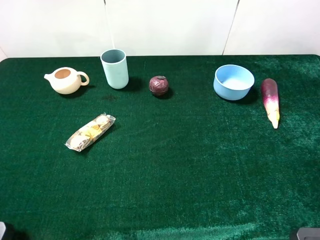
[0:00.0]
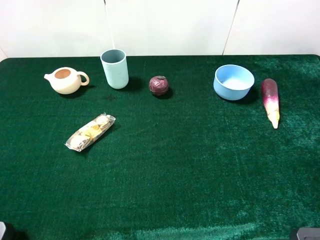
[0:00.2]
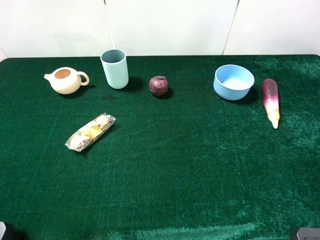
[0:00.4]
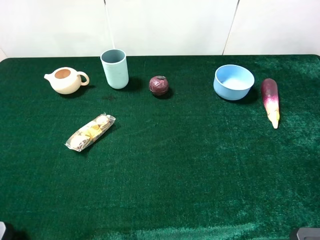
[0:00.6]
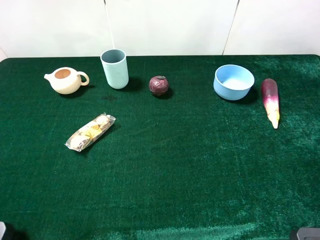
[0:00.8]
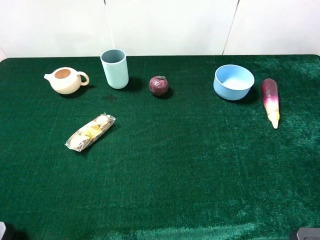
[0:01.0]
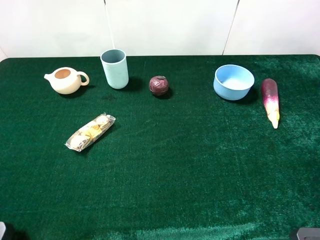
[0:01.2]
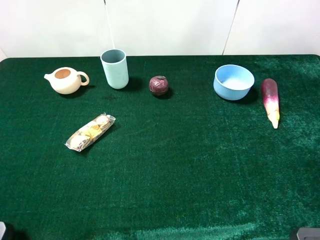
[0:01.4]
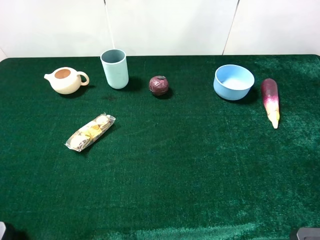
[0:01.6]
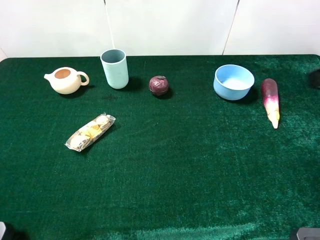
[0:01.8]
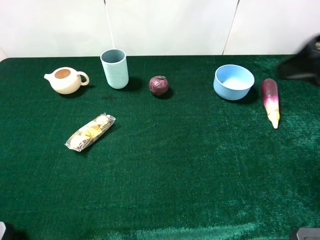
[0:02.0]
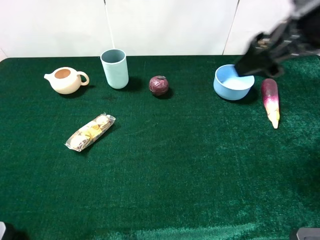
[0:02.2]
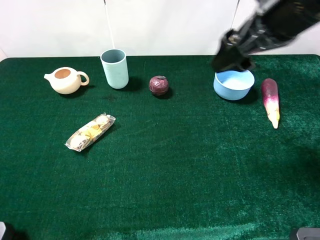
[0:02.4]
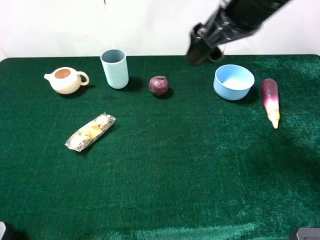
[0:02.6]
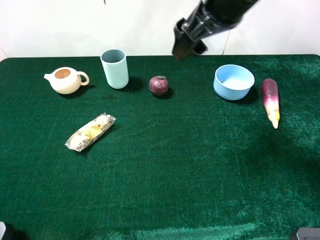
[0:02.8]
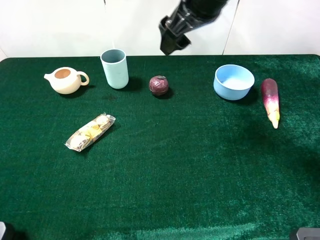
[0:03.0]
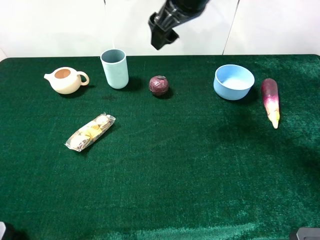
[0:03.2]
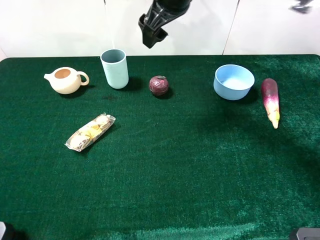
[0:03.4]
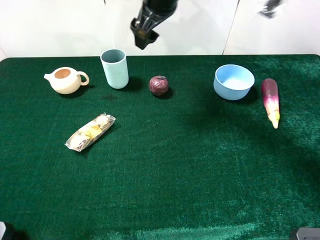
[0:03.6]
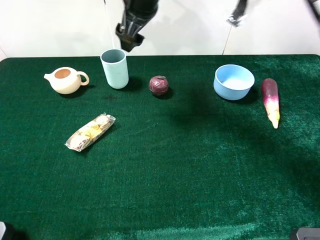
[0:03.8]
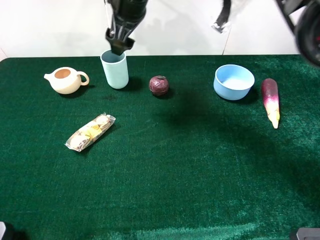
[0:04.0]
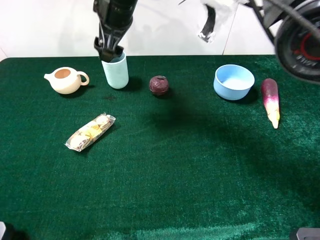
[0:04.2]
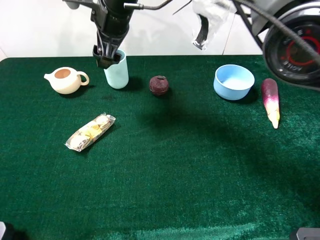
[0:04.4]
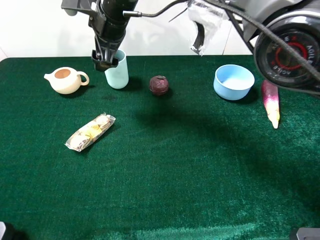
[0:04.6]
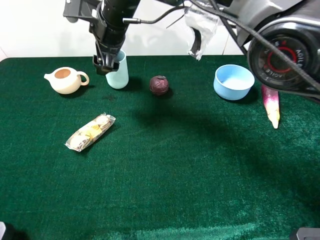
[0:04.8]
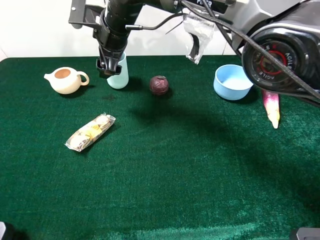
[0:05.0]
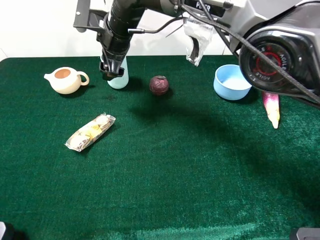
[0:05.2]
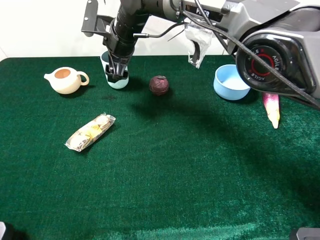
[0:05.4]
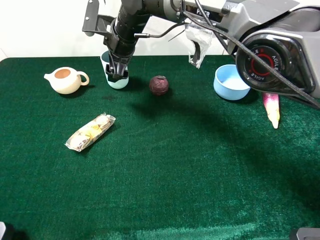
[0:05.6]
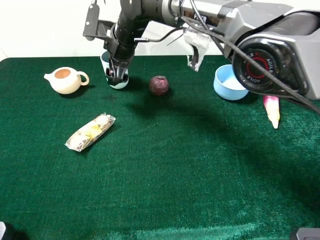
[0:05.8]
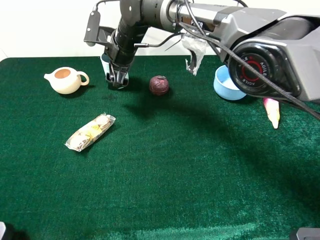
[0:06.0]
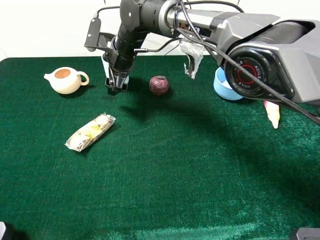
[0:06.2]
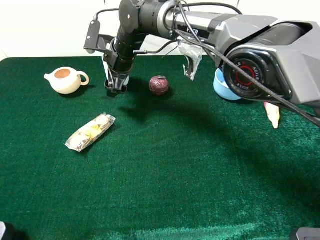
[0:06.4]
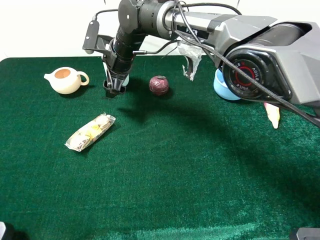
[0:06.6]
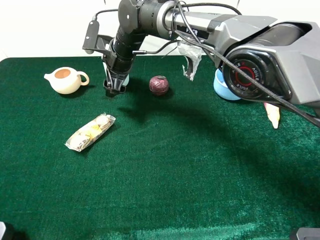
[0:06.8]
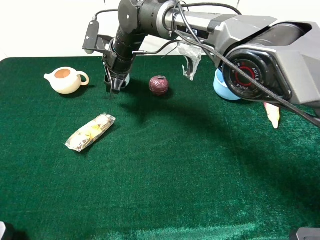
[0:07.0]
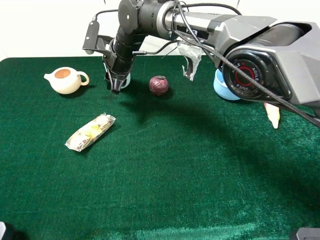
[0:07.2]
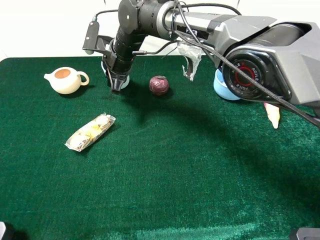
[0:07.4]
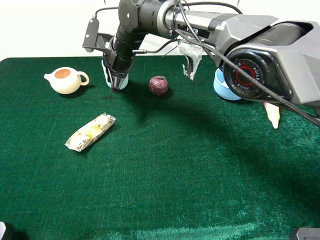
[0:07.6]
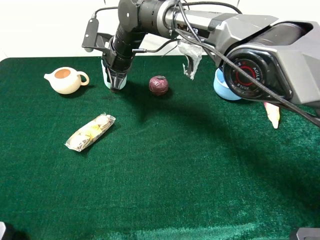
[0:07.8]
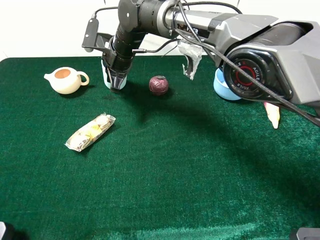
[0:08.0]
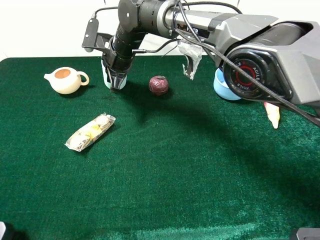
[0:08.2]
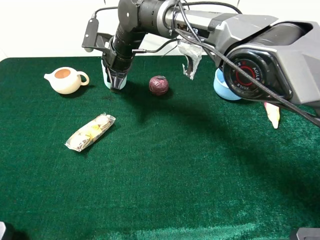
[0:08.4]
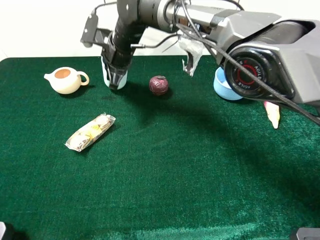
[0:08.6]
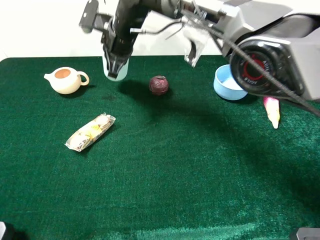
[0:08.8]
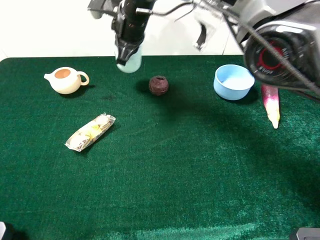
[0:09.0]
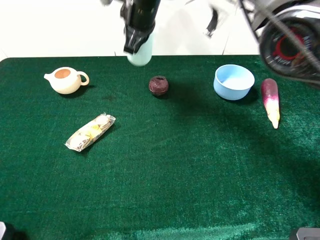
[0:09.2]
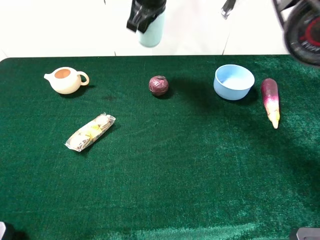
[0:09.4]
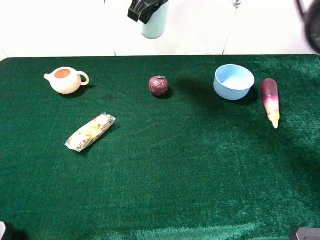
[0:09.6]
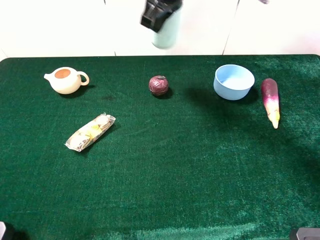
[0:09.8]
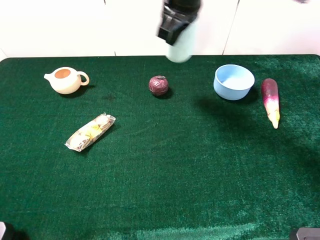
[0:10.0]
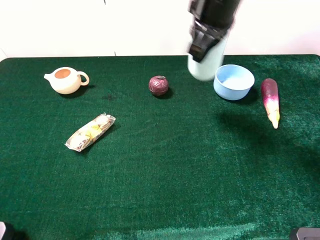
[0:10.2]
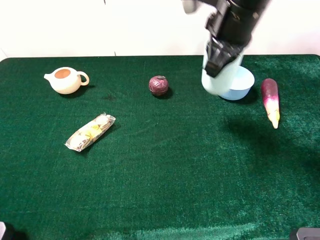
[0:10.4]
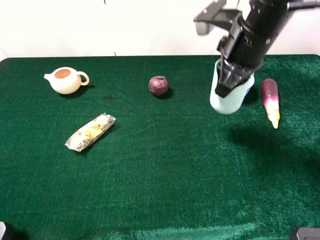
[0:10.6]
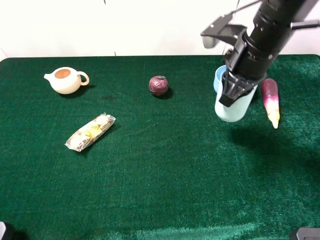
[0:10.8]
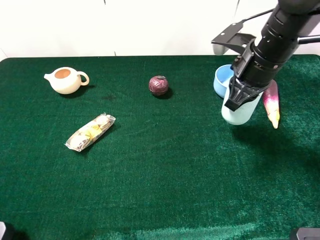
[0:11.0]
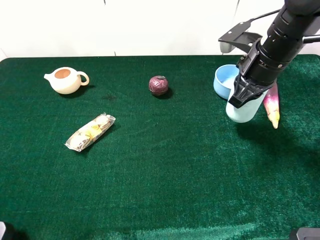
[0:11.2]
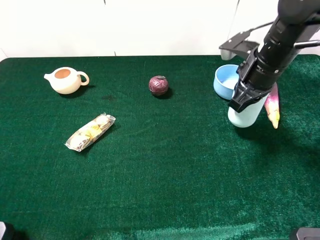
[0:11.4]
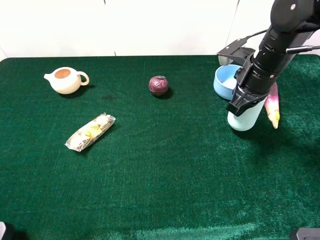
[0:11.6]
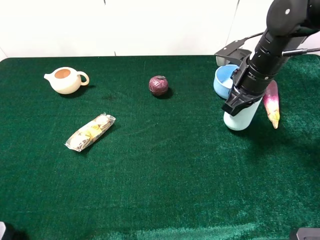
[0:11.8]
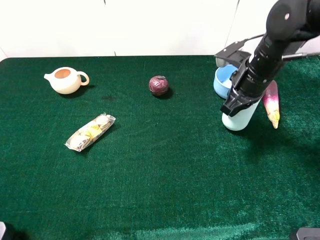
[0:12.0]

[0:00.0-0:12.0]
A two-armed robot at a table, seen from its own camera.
Task of the whole recording: the gripper move the object.
Step, 0:00.0 to 0:08.2: Grasp the cyan cup with the right gripper.
0:01.6 to 0:03.0: The right gripper is displaced to the left and forward by some 30 cm.
0:03.0 to 0:04.4: The right gripper shifts roughly 15 cm to the left and downward.
0:04.4 to 0:06.0: The right gripper shifts about 10 cm downward.
0:06.0 to 0:07.6: The right gripper closes up.
0:07.6 to 0:09.0: The right gripper heads upward, covering approximately 10 cm.
0:09.0 to 0:10.4: The right gripper heads to the right and backward, covering approximately 20 cm.
0:10.4 to 0:12.0: The right gripper shifts approximately 15 cm downward and to the right.

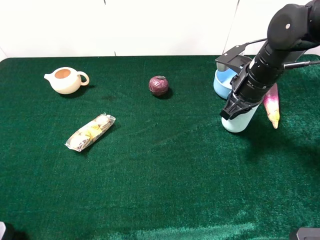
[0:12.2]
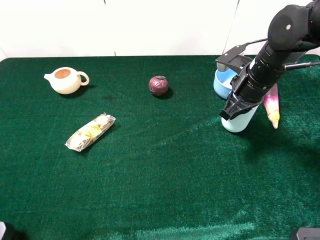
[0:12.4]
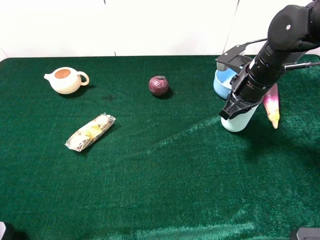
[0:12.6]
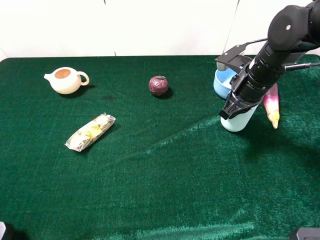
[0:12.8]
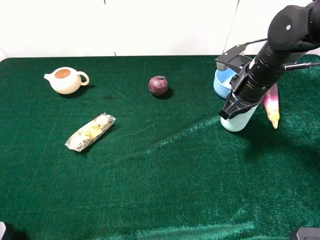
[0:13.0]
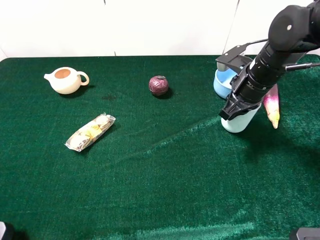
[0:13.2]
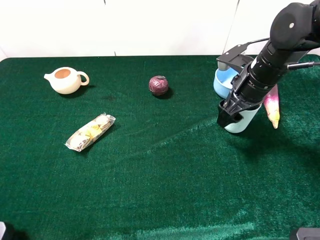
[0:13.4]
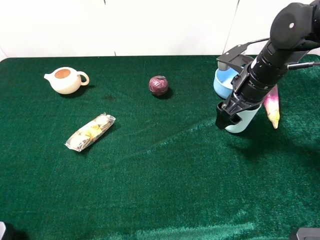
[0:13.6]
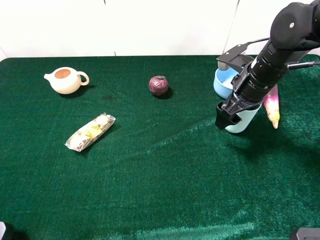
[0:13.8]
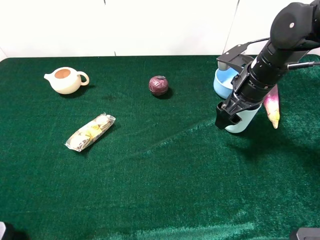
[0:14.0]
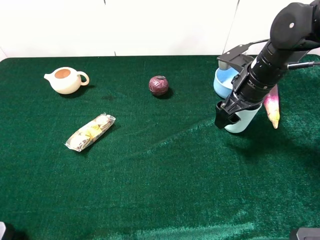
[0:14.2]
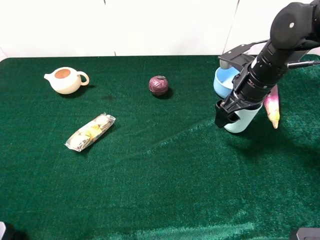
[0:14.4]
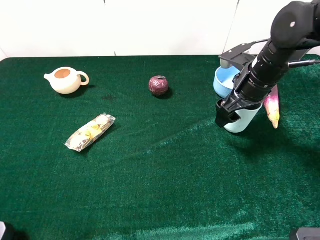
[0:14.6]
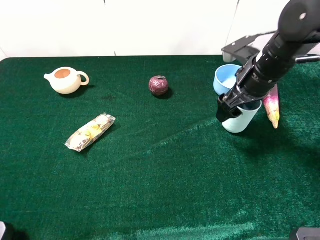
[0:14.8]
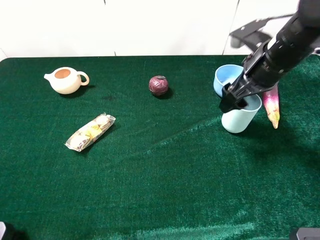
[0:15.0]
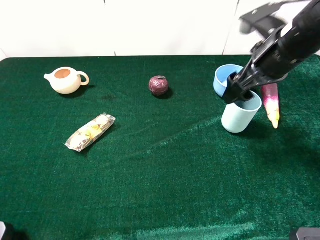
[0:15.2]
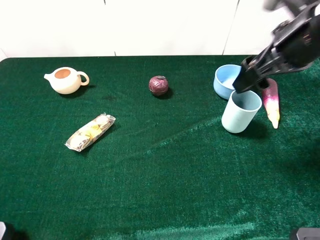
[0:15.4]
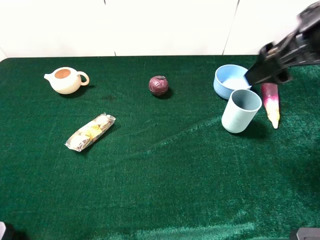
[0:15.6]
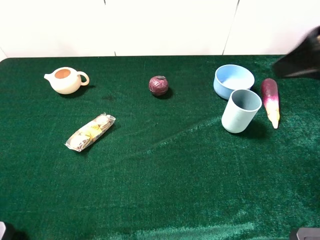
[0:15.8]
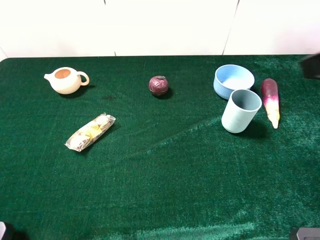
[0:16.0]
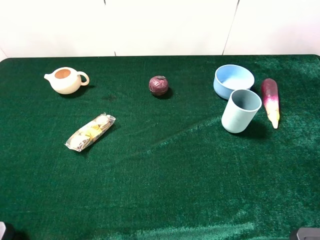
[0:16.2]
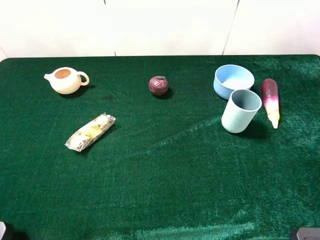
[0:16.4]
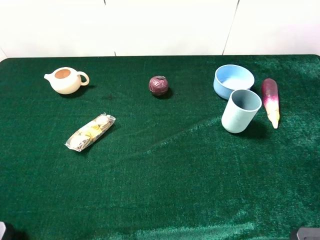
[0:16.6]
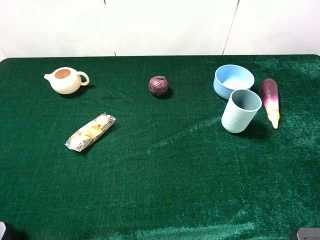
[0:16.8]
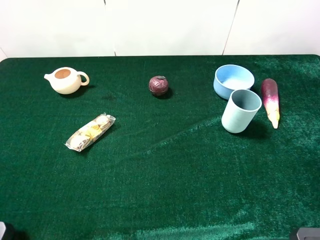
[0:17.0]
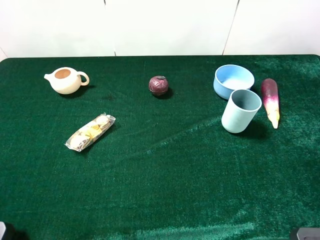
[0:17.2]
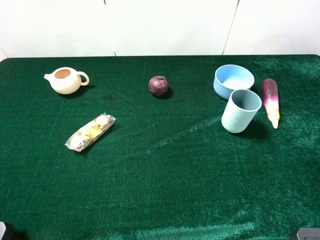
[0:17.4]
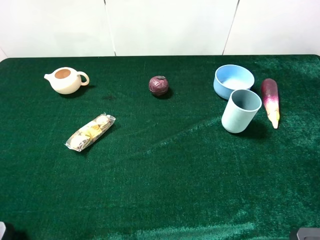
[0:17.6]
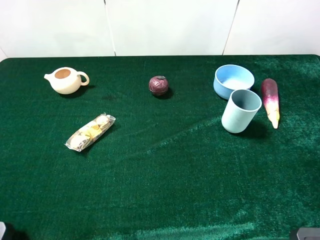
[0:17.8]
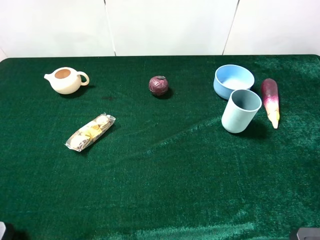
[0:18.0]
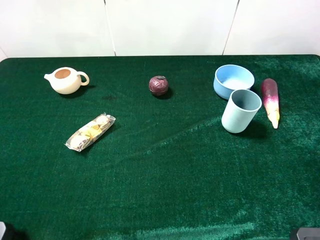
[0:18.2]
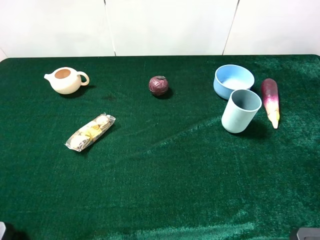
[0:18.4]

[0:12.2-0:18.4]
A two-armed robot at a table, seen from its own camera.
Task of the whole recording: the gripper move the object.
Step, 0:12.2 to 0:15.0: Place the cyan cup on the table with the right gripper.
0:12.2 to 0:13.8: The right gripper opens its fingers.
0:13.8 to 0:15.4: The right gripper heads upward and backward, covering about 15 cm.
0:15.4 to 0:16.8: The right gripper moves backward, roughly 25 cm.
